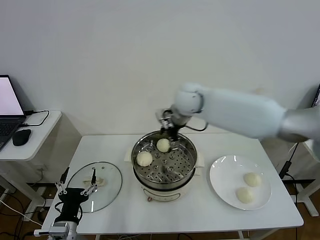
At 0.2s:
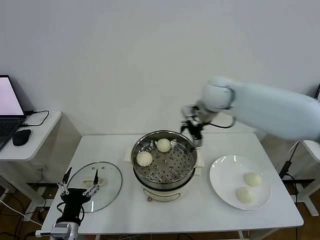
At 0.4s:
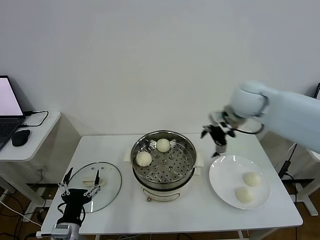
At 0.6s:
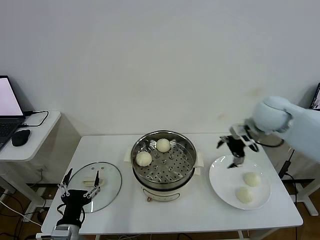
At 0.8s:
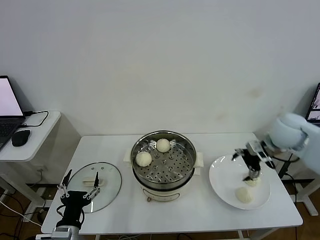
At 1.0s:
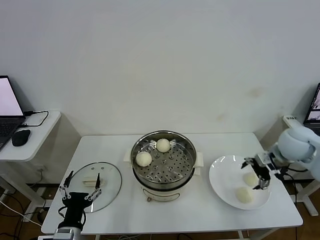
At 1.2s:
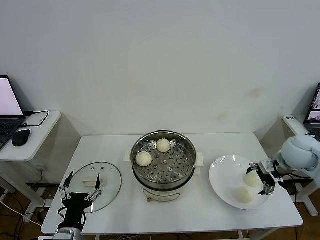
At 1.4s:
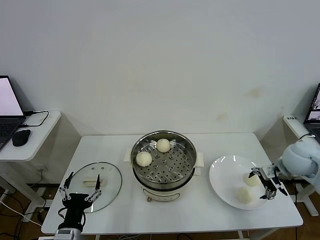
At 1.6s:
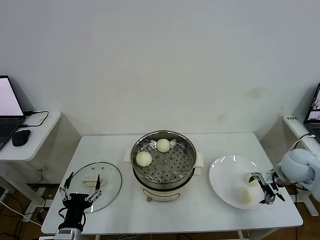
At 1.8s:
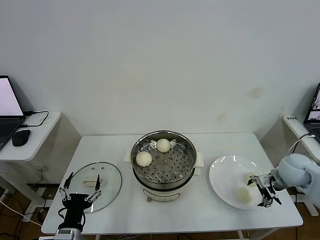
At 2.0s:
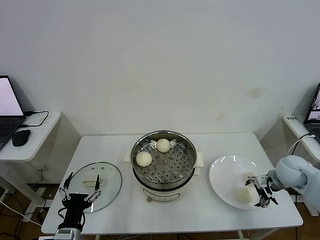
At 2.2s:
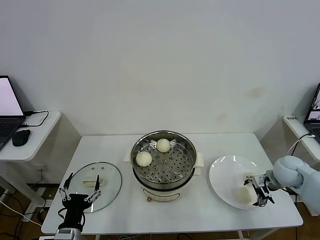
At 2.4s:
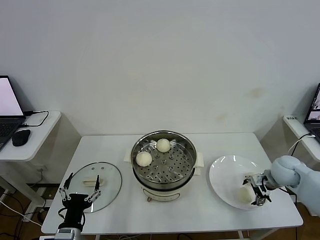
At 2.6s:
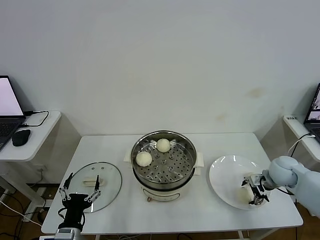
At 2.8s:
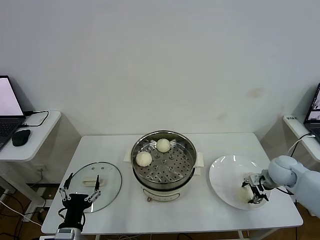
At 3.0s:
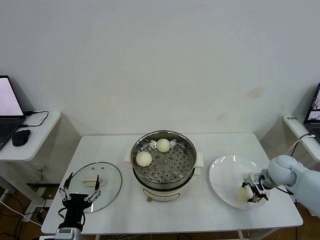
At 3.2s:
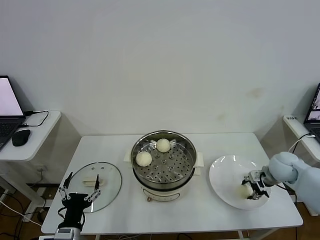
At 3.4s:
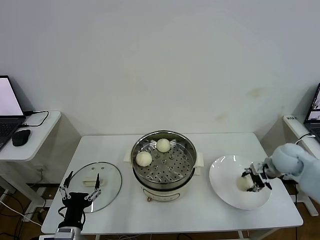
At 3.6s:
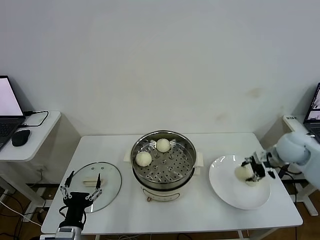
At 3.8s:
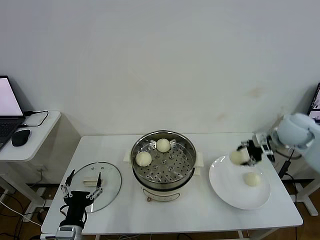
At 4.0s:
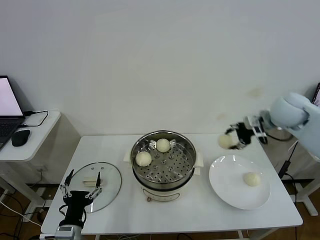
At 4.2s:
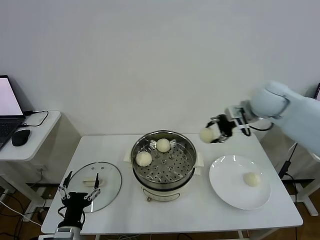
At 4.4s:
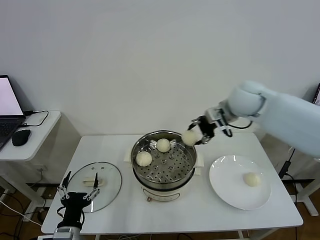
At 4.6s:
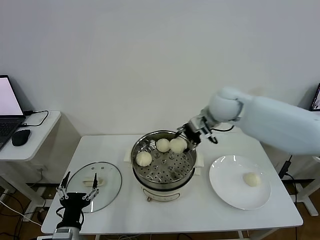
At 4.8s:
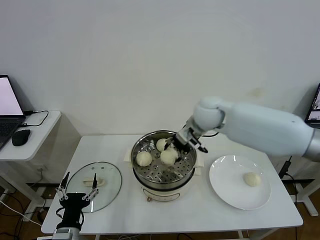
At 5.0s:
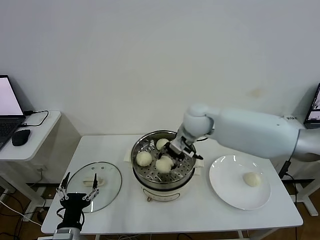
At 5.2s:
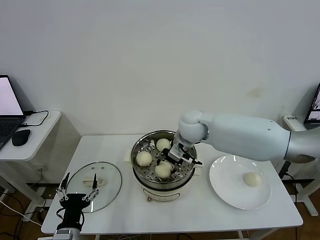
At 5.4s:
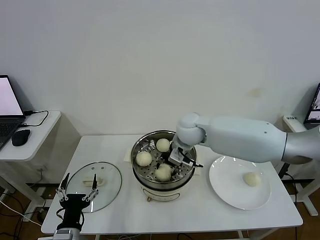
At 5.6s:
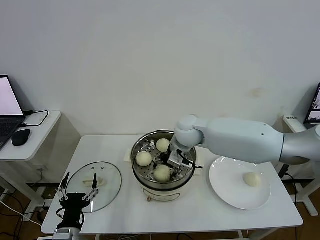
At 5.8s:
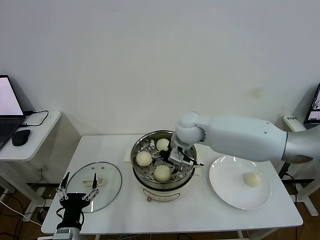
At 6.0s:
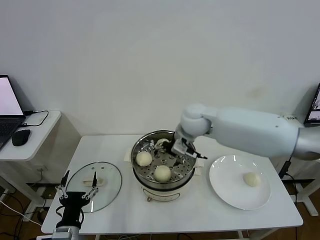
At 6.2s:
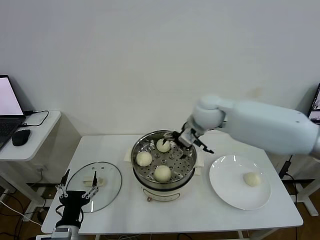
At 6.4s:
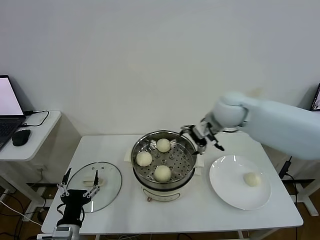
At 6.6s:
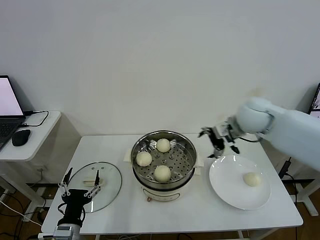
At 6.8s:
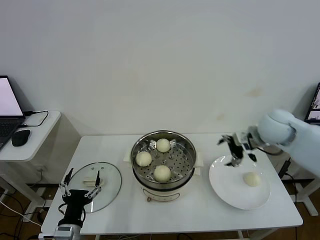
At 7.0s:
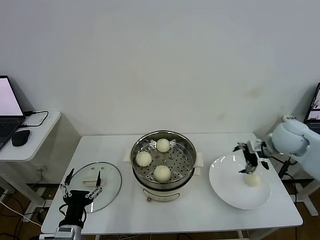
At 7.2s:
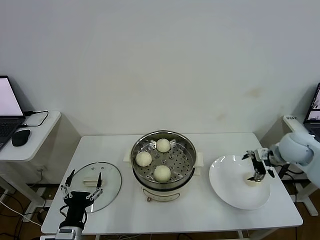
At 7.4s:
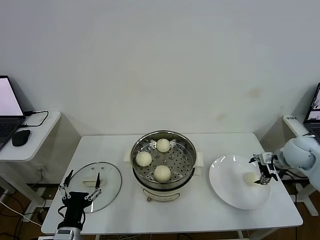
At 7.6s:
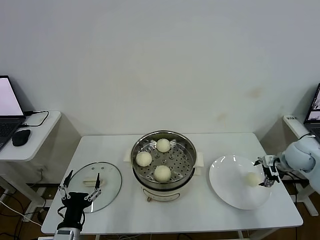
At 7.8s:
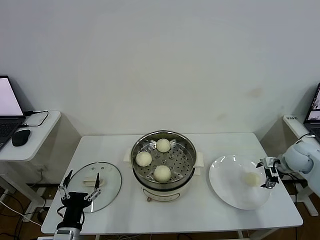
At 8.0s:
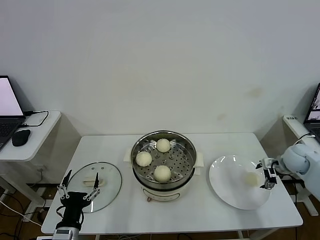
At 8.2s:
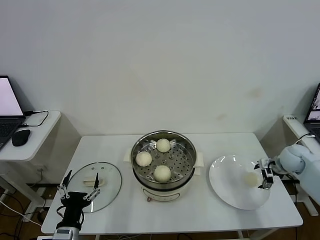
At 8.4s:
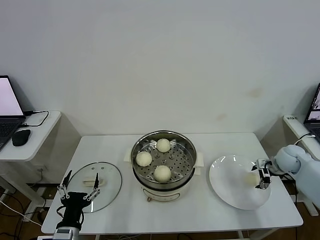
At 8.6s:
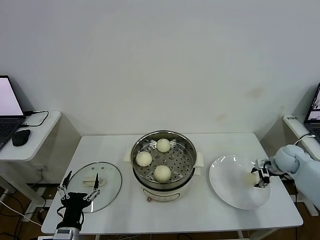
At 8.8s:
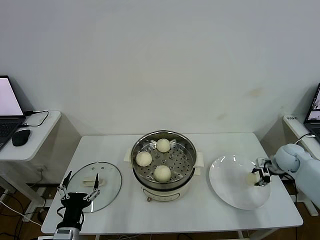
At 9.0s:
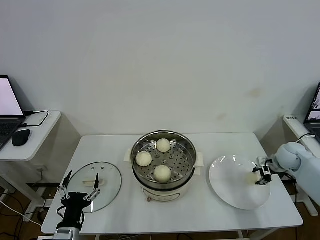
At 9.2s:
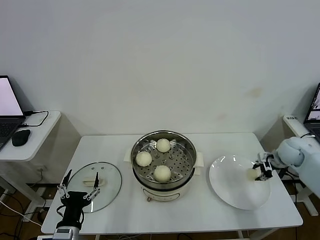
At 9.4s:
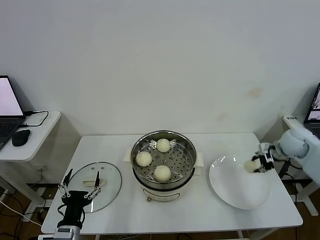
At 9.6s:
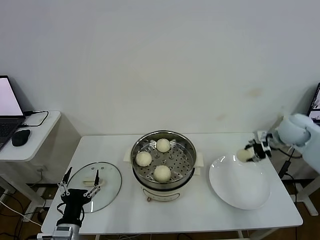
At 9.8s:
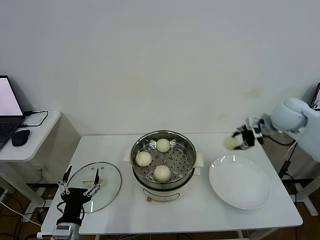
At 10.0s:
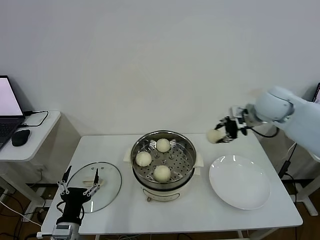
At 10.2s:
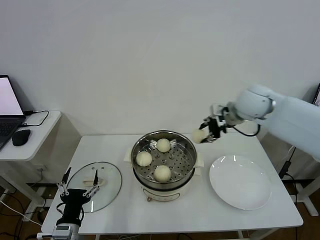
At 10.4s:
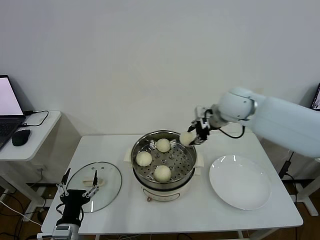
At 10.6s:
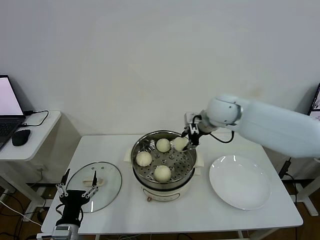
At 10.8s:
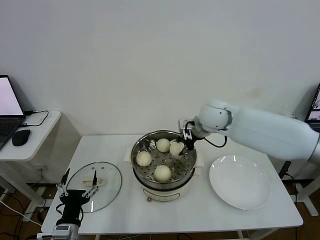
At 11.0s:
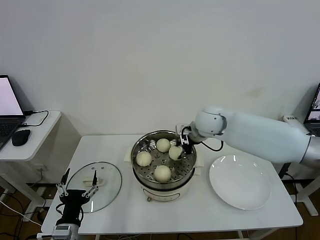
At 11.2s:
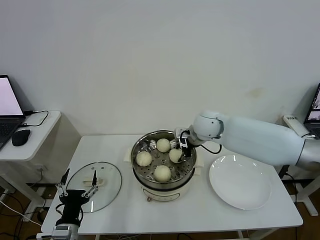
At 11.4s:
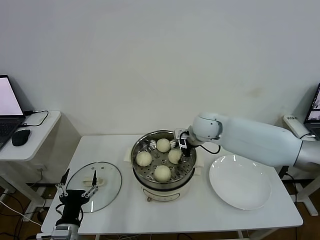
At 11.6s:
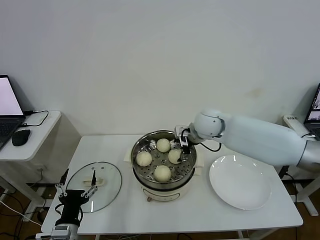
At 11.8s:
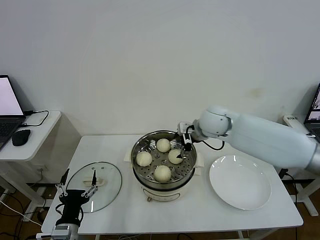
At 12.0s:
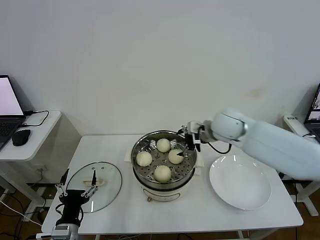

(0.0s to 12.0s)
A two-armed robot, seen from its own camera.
Step, 0.2s - 3.0s: Grasp the baozi in the plate with right gripper.
Step, 3.2s - 5.8s: Place the baozi on the steamer with right gripper.
Step, 6.0s - 8.6s: Grasp the baozi in the plate with right gripper.
Step, 9.0s - 11.6s: Place the baozi on the steamer with right gripper.
0.0s - 1.6s: The right gripper shifts approximately 40 cm to the right, downward and backward.
1.6s - 3.0s: The right gripper heads downward, covering roughly 5 cm, and closes its fingers.
3.0s - 4.4s: The right gripper goes roughly 30 cm upward, to the left and forward.
4.4s - 6.0s: The right gripper moves to the left and downward, approximately 10 cm, and opens up.
6.0s - 7.6s: The right gripper heads to the right, covering about 35 cm.
7.6s - 9.0s: The right gripper closes.
9.0s - 10.4s: The right gripper shifts approximately 35 cm to the left and upward.
10.4s - 12.0s: The right gripper travels downward by roughly 5 cm, and opens its fingers.

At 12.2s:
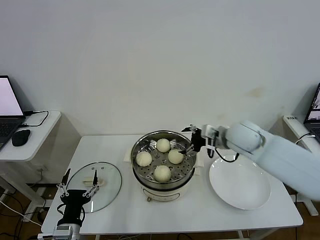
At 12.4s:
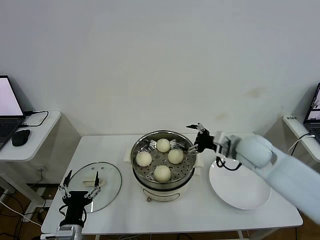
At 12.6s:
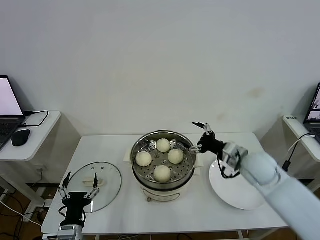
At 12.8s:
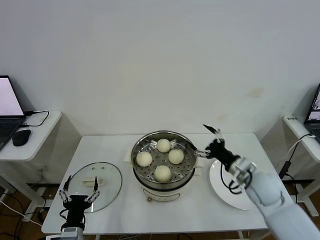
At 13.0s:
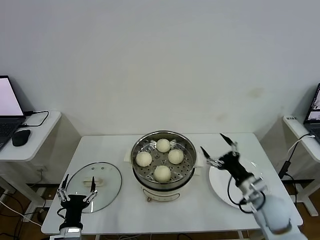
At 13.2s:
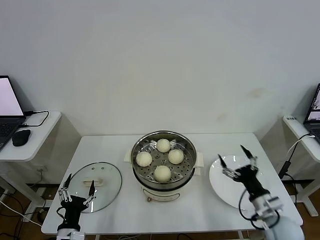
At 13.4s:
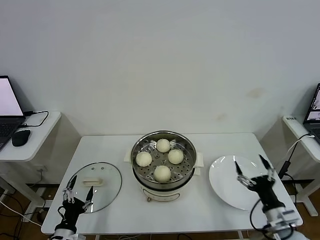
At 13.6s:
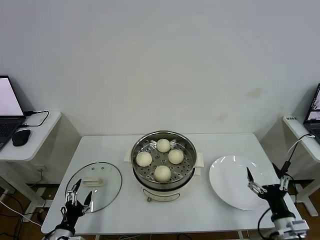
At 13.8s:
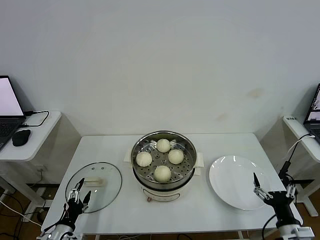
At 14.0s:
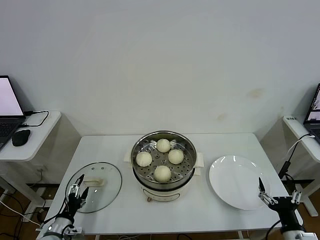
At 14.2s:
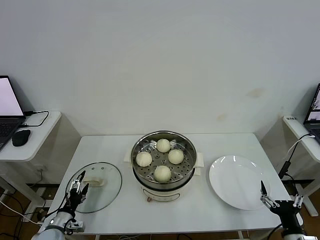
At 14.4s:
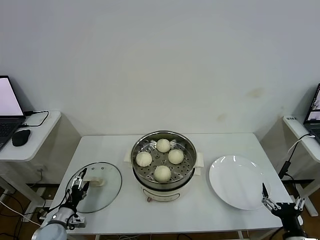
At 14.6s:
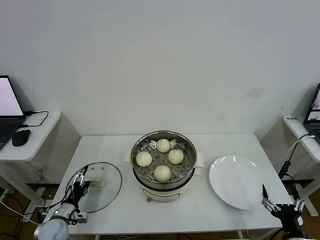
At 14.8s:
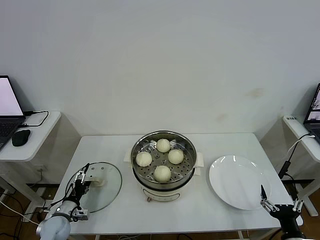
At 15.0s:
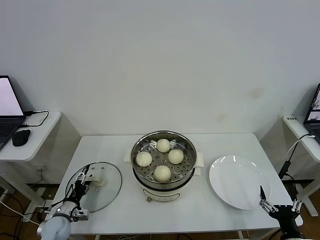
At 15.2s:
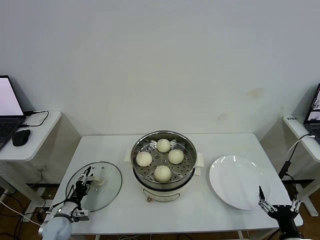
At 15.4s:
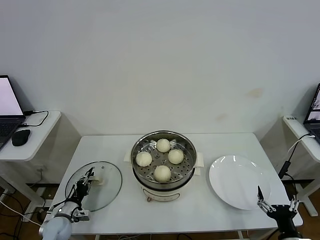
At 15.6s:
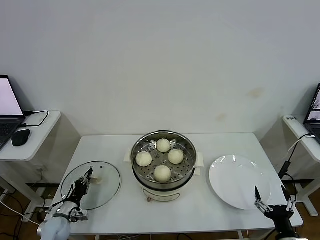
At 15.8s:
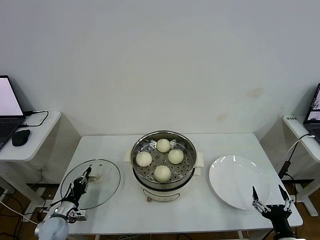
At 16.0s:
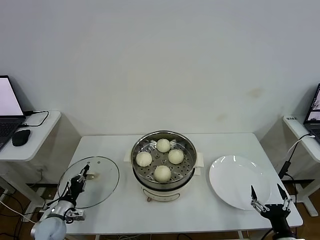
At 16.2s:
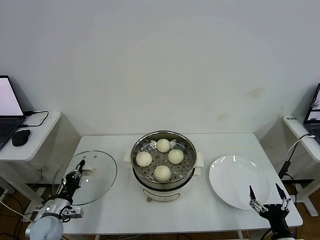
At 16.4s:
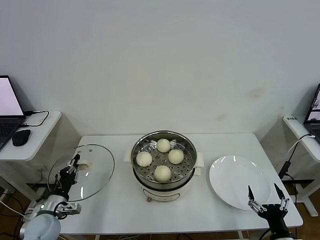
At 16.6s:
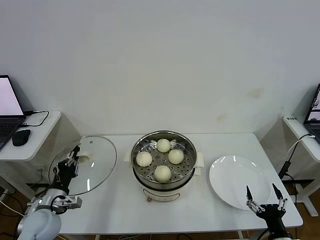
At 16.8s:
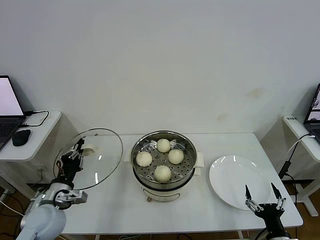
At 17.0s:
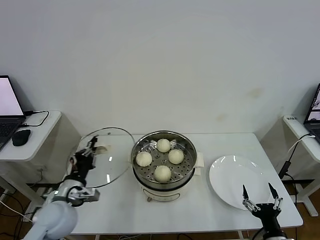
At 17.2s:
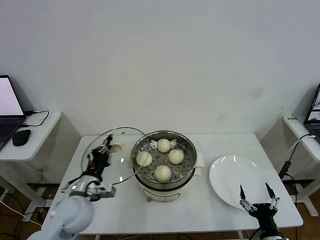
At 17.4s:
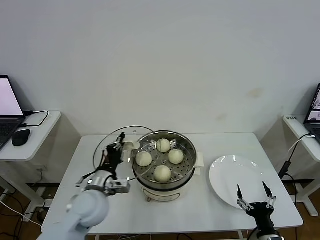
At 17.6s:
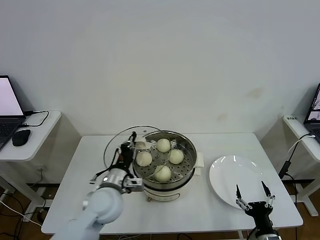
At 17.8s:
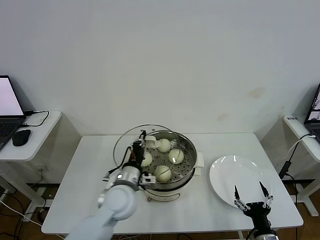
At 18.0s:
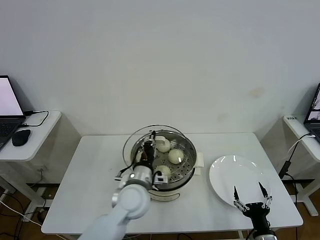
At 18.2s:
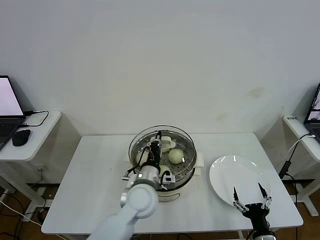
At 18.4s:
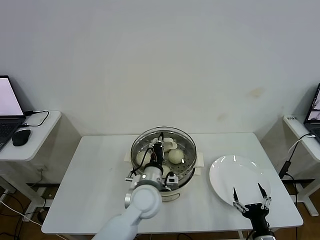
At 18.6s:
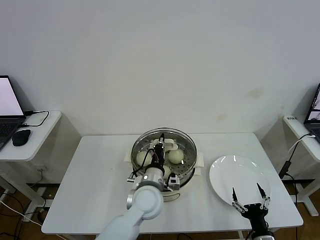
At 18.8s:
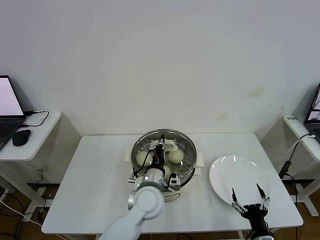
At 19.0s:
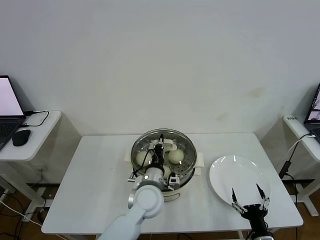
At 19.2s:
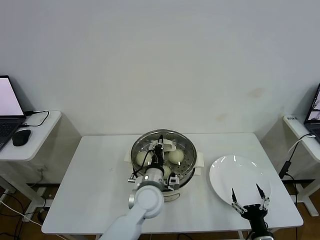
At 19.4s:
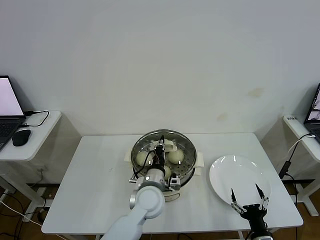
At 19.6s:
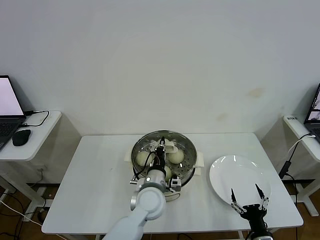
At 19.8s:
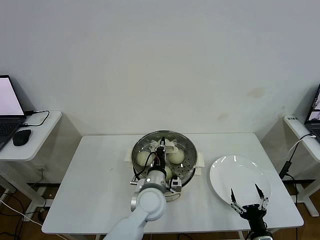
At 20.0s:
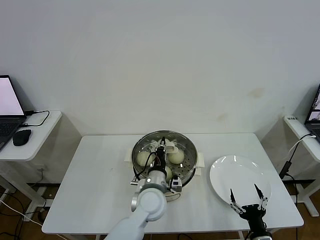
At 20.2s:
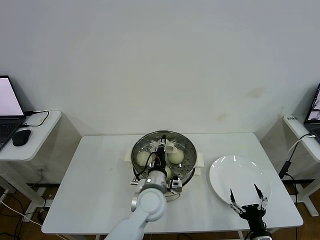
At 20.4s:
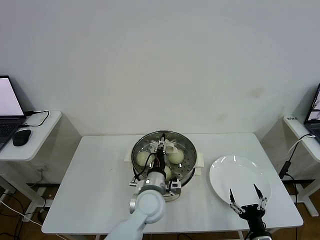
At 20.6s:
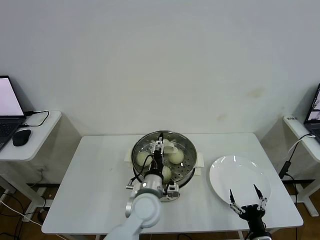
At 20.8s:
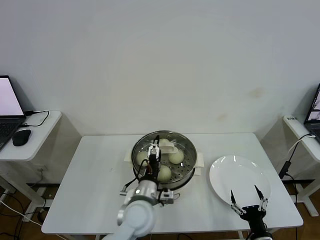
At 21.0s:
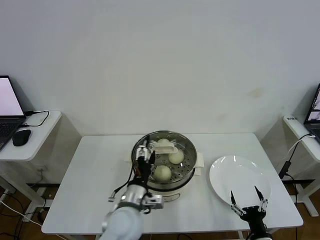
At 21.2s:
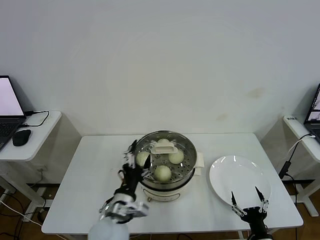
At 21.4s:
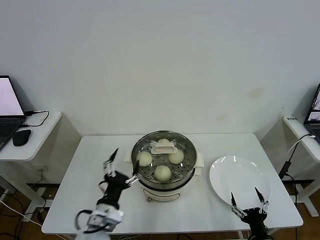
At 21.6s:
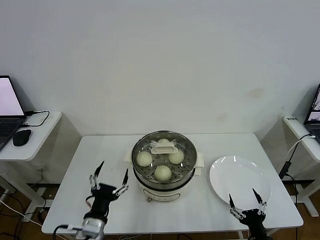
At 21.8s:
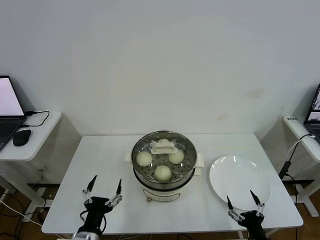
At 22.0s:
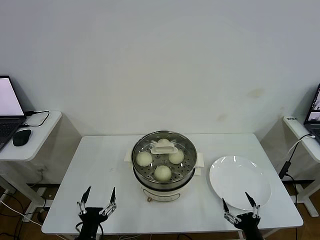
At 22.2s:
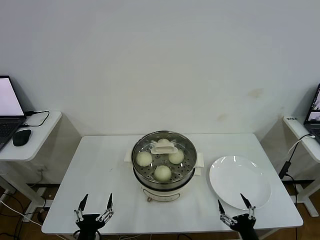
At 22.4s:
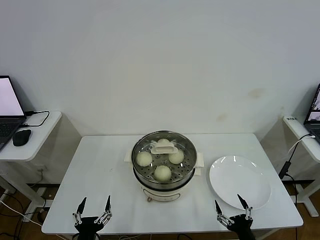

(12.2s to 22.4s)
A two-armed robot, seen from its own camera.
Step, 12.2s - 16.0s: Grasp the pot lid with left gripper.
Step, 16.2s - 21.0s: Place the pot lid on the steamer with left gripper.
12.2s - 13.6s: The left gripper moves downward and to the left, some 10 cm, while the right gripper shifts some 35 cm backward, downward and to the right.
13.6s - 15.2s: The right gripper heads backward, covering about 5 cm, while the left gripper shifts roughly 10 cm forward, and closes up.
15.2s - 16.6s: The left gripper shifts roughly 15 cm upward, and closes up.
16.6s - 18.0s: The left gripper is displaced to the right by about 25 cm.
18.0s - 19.4s: The left gripper moves to the right, roughly 5 cm.
19.4s - 21.0s: The left gripper shifts roughly 10 cm backward and to the left, and opens.
21.0s - 22.4s: The left gripper moves backward, to the left and downward, about 25 cm.
